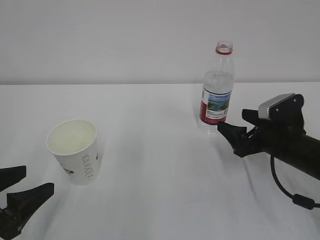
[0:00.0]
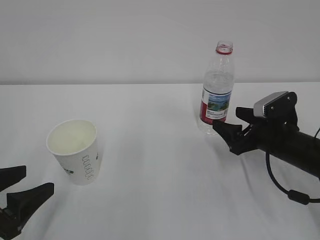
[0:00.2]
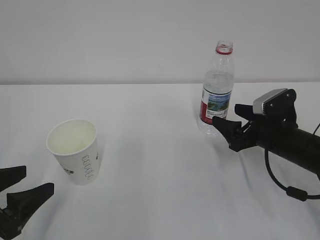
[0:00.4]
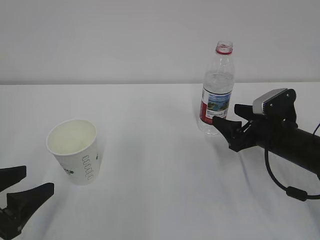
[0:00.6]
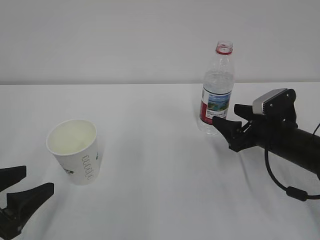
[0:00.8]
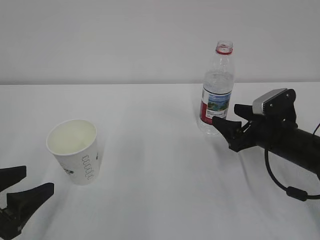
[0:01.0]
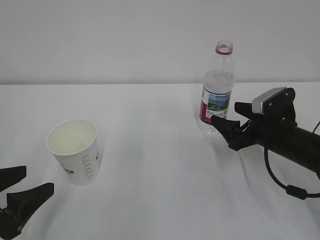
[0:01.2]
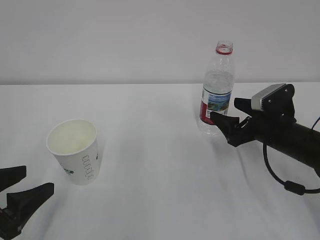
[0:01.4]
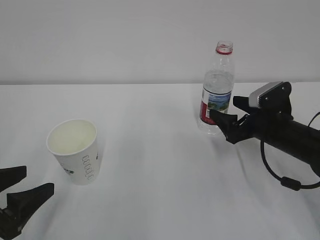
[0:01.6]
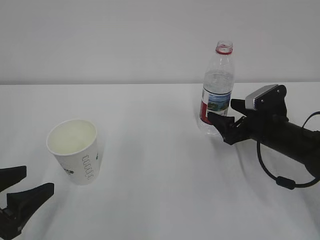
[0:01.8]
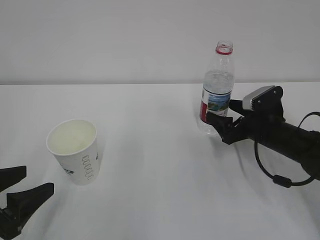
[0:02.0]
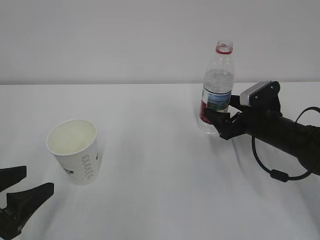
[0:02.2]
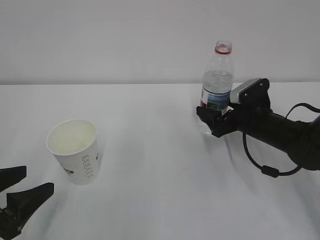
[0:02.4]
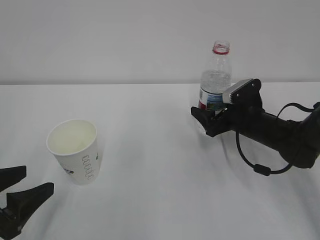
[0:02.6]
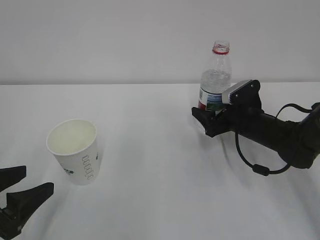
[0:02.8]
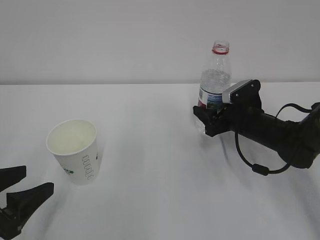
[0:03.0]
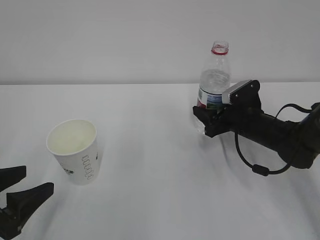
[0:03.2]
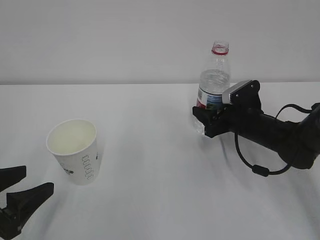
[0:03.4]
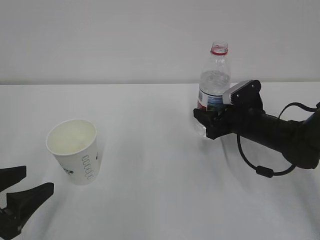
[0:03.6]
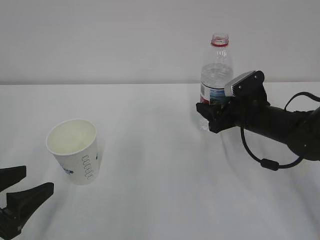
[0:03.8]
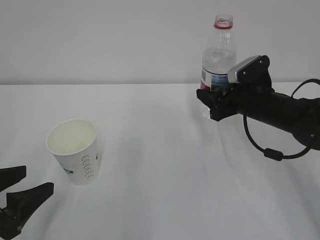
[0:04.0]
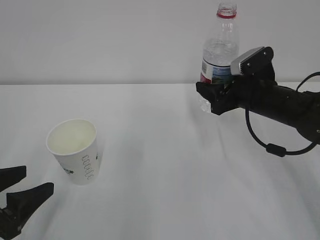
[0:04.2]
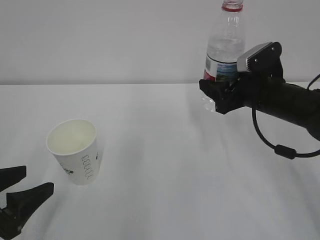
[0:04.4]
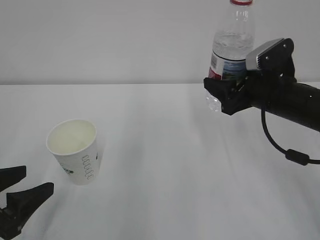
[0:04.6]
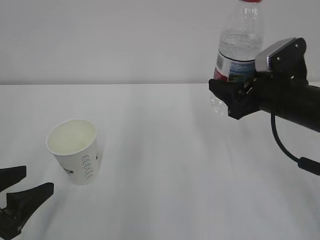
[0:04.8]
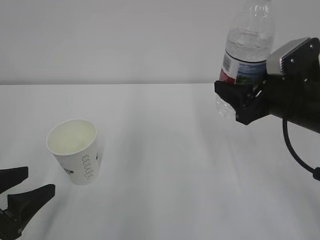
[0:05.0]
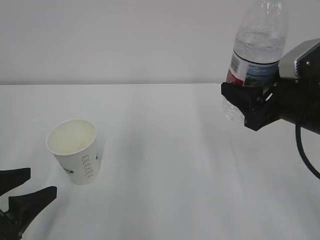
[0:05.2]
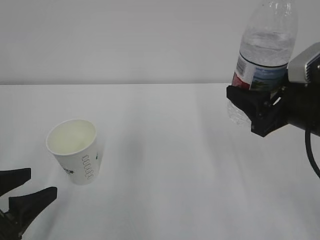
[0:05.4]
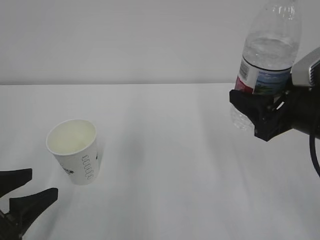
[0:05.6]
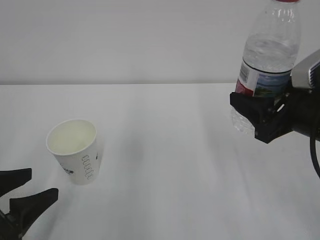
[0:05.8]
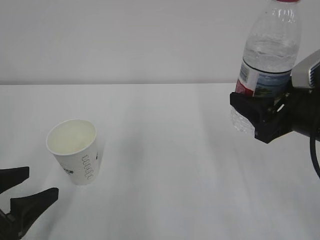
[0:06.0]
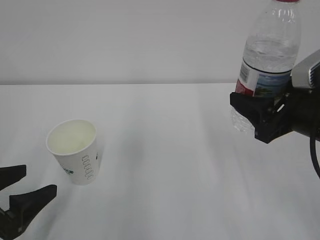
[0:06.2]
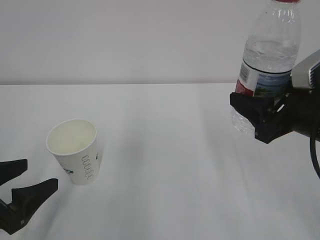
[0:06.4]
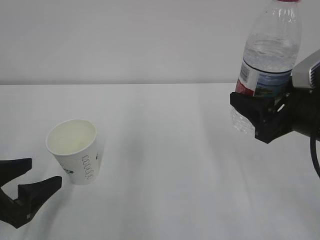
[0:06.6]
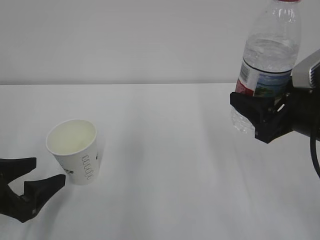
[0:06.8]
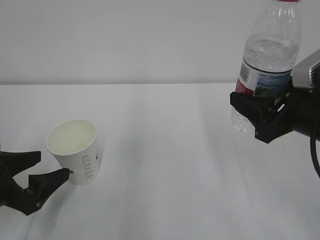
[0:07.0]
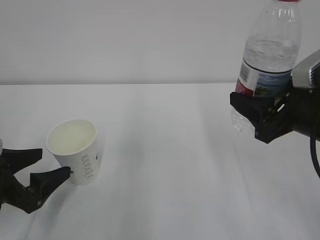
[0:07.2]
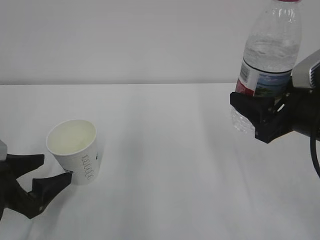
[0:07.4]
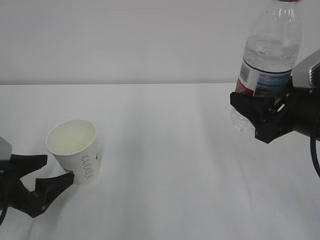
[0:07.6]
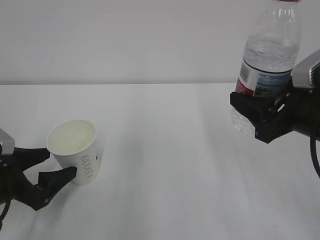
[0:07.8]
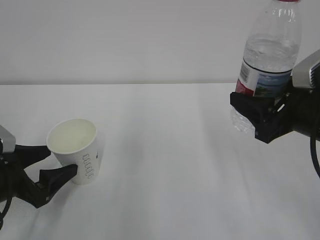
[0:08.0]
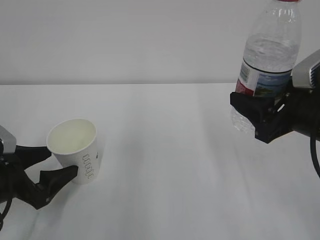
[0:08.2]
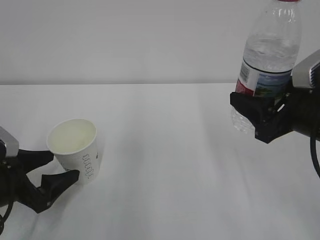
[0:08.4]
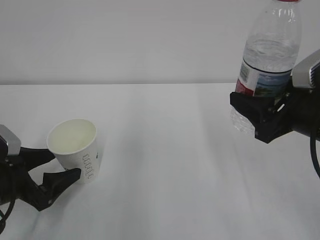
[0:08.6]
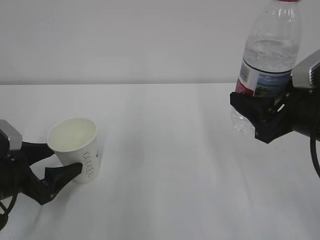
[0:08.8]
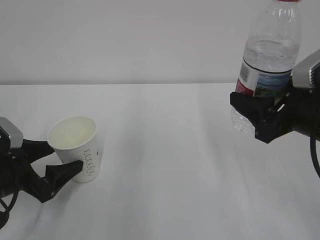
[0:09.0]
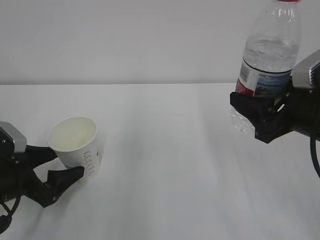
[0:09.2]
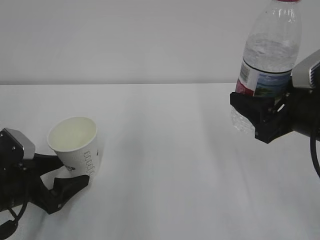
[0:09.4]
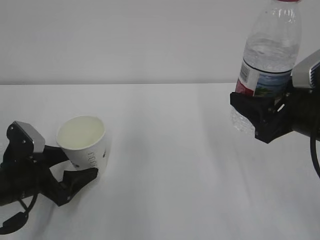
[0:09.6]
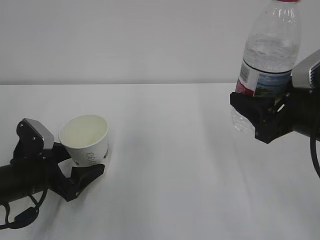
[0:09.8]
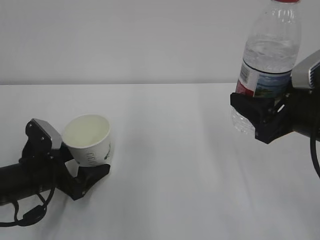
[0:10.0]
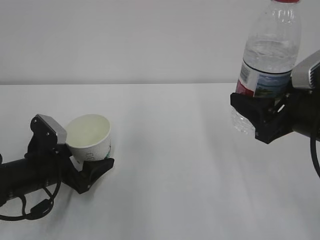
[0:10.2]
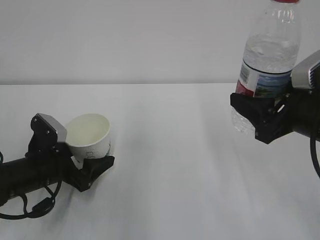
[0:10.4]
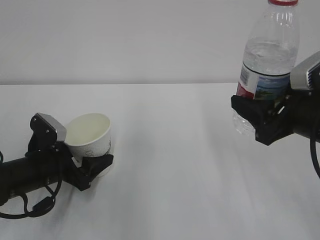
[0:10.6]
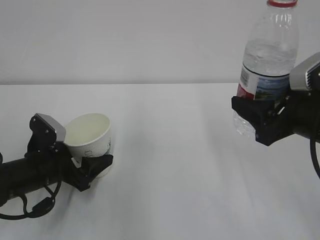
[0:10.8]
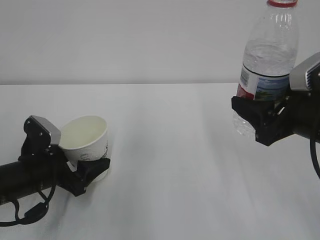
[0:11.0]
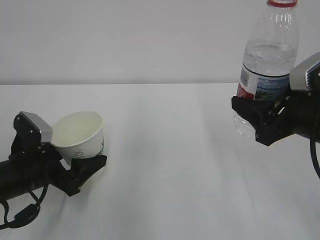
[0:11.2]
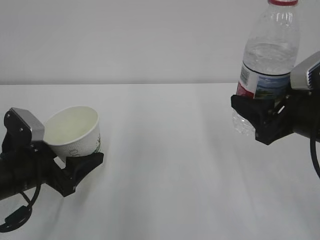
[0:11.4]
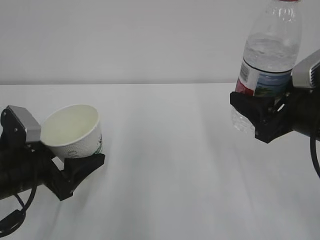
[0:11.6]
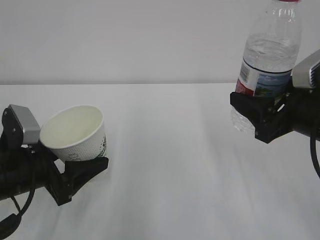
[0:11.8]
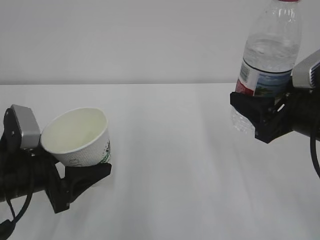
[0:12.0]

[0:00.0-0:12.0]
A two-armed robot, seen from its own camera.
0:00.0 to 0:01.6: There are only small adjustments of the grippers.
0:01.6 to 0:03.0: The right gripper moves roughly 5 cm, and closes.
0:03.0 to 0:04.4: The right gripper heads upward, covering approximately 10 cm.
0:04.4 to 0:06.0: The right gripper shifts some 10 cm backward; the left gripper opens.
0:06.0 to 0:07.6: The left gripper shifts some 5 cm forward.
0:07.6 to 0:09.0: The grippers stay close to where they were, moving slightly.
0:09.0 to 0:10.4: The left gripper shifts by some 5 cm.
0:10.4 to 0:12.0: The left gripper travels upward and backward by roughly 10 cm, and closes up.

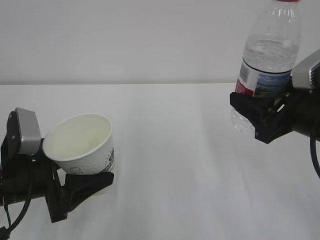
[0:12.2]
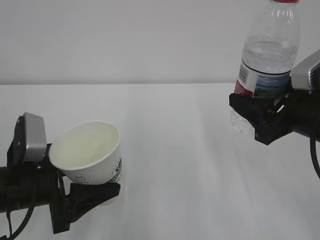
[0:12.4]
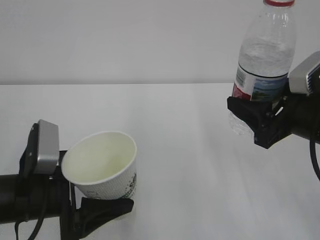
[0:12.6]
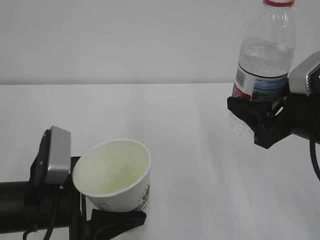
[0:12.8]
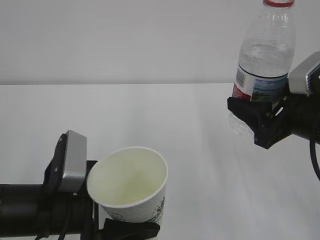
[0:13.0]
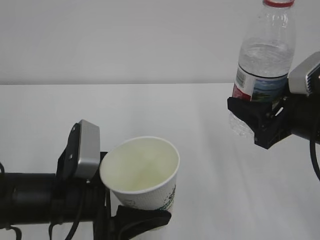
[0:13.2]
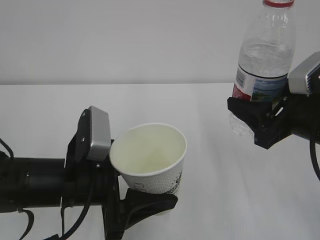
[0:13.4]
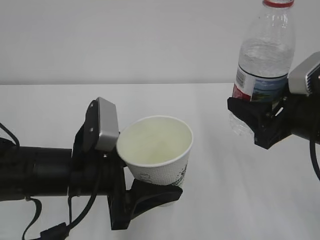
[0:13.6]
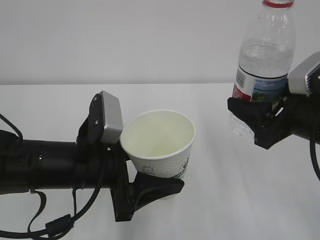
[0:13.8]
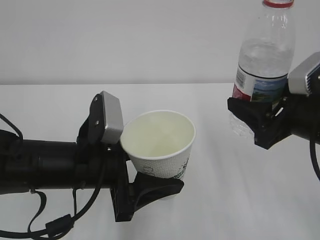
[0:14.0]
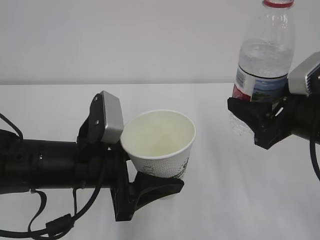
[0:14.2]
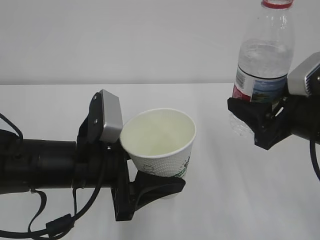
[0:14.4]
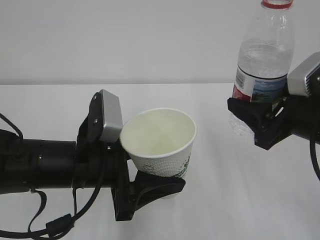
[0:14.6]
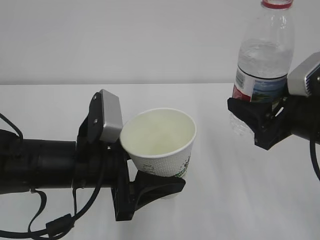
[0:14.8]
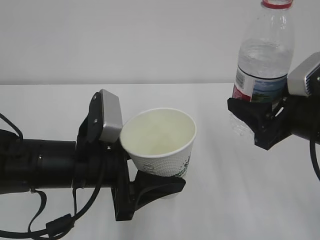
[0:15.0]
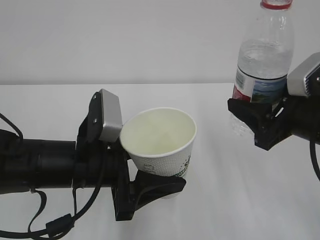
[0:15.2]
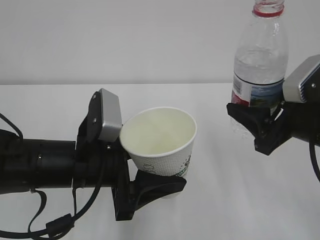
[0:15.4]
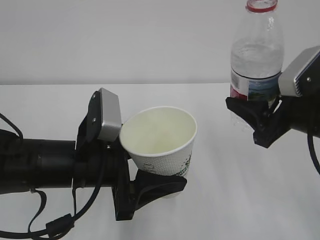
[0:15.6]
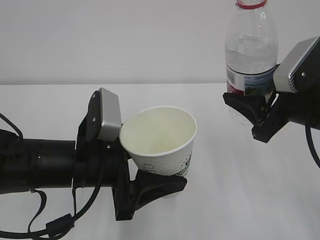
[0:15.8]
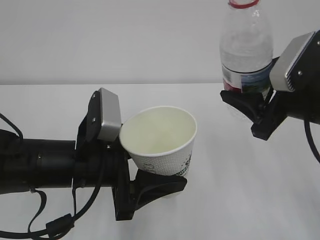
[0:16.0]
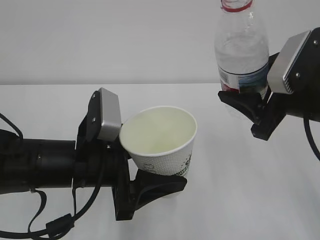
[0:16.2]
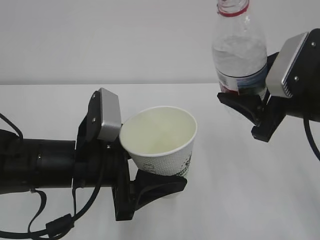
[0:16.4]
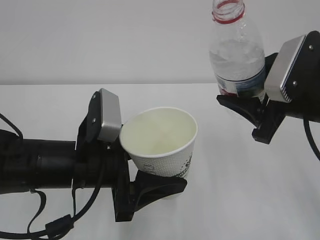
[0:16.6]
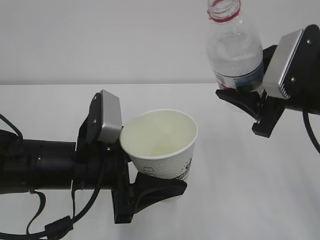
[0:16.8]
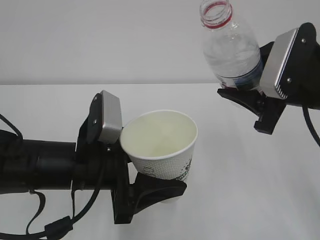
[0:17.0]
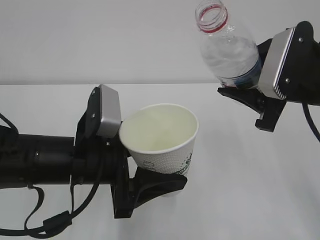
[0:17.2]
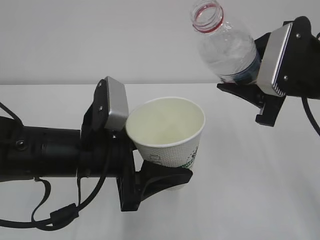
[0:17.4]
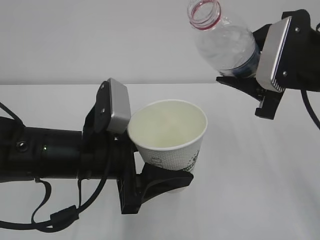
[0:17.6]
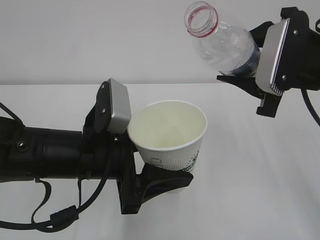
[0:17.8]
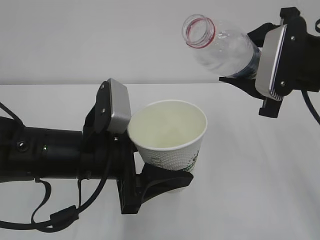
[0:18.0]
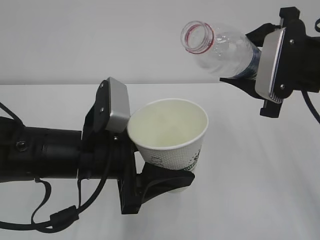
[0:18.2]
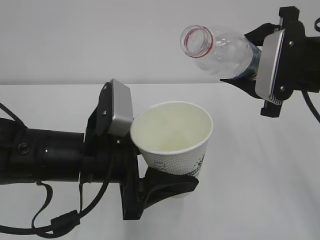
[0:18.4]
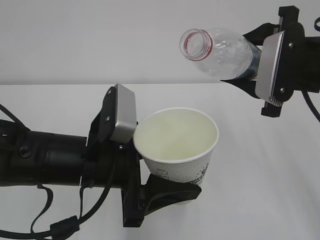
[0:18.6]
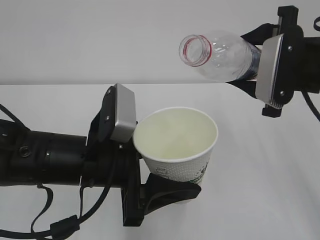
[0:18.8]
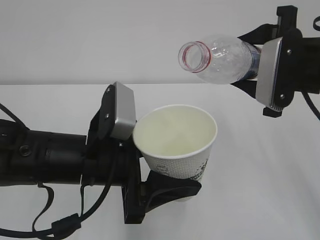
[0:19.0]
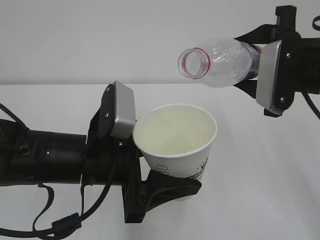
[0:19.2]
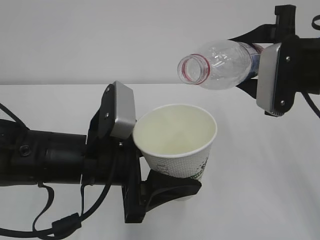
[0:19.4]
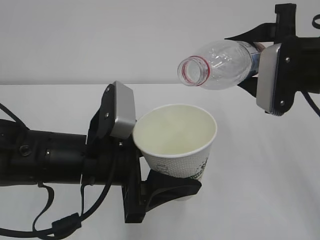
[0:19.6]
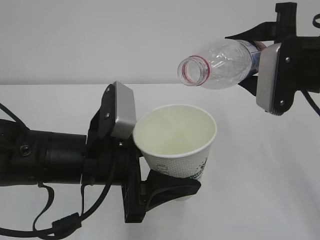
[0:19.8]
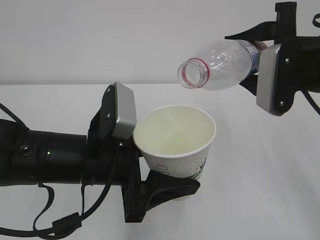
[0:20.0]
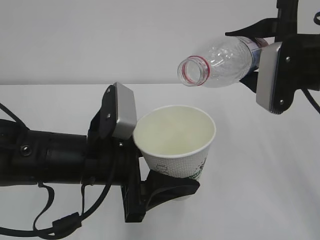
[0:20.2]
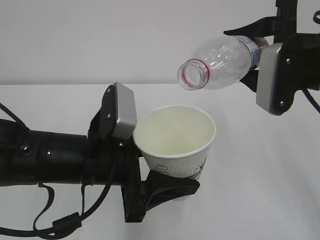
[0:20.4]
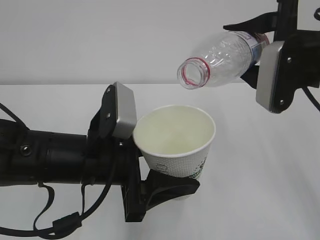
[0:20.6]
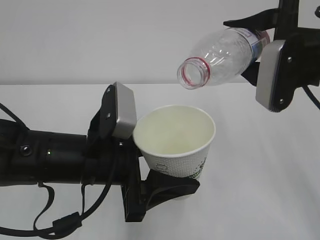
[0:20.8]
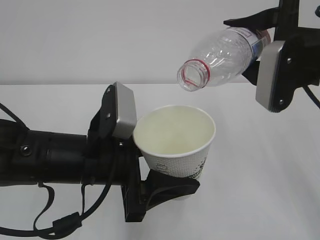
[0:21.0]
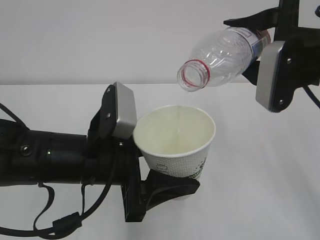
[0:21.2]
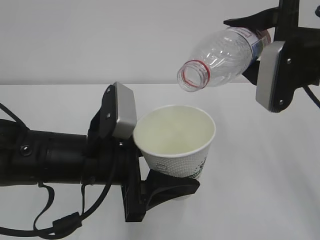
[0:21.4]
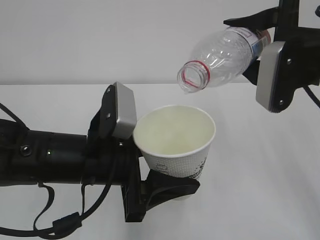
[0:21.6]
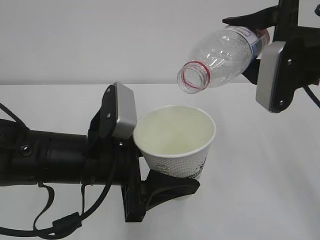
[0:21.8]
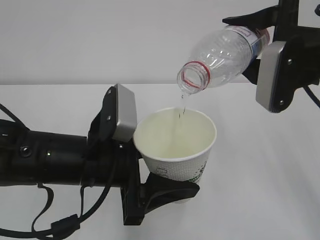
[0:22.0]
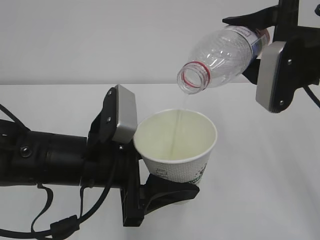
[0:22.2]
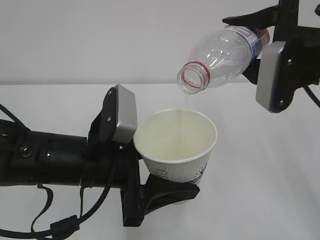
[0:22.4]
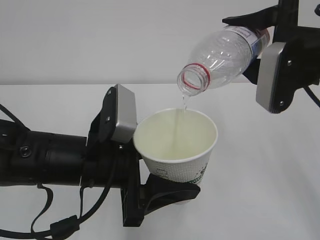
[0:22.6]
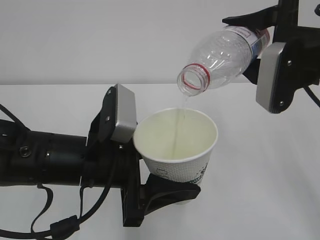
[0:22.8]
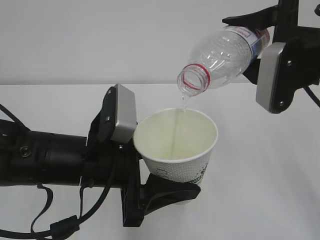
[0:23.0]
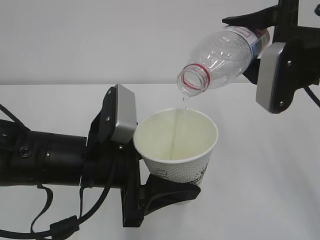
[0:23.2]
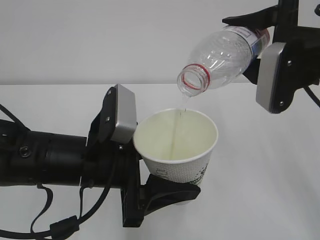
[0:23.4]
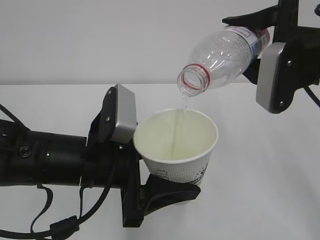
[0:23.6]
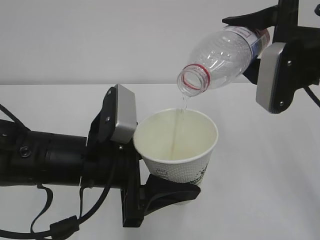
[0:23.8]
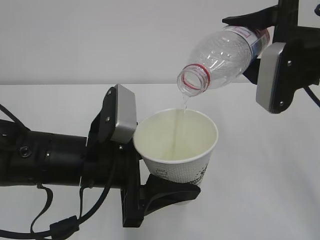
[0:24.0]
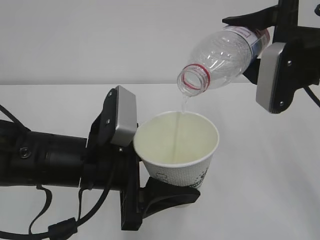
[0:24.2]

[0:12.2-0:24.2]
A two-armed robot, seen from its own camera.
0:12.2 to 0:13.8: The left gripper travels to the right by approximately 10 cm.
0:13.8 to 0:15.2: The two grippers keep their place.
0:18.2 to 0:19.8: The grippers make only small movements.
0:19.8 to 0:21.2: The grippers stay close to where they were, moving slightly.
0:21.2 to 0:24.2: The two grippers keep their place.
